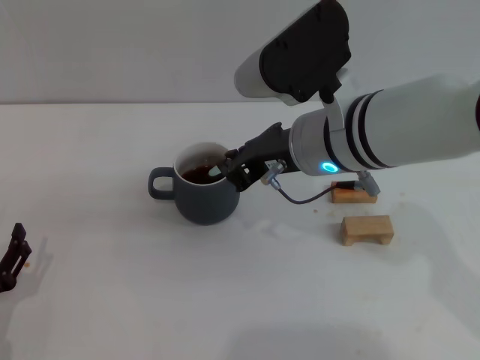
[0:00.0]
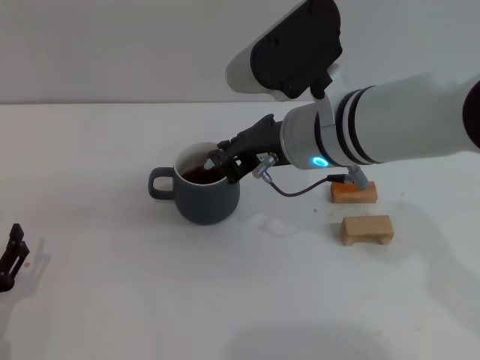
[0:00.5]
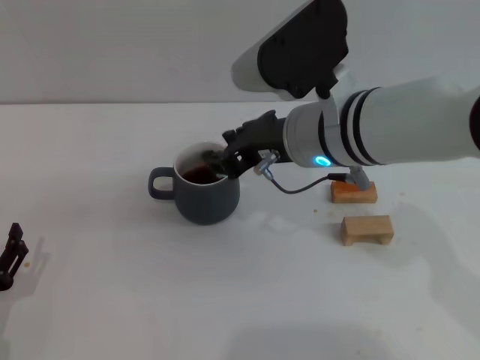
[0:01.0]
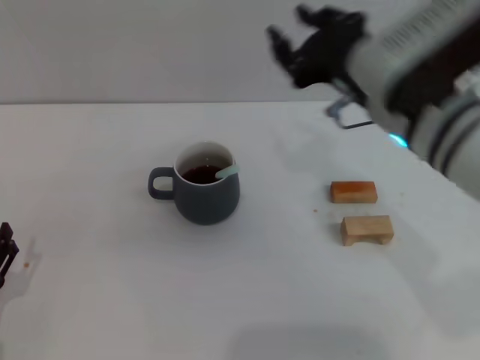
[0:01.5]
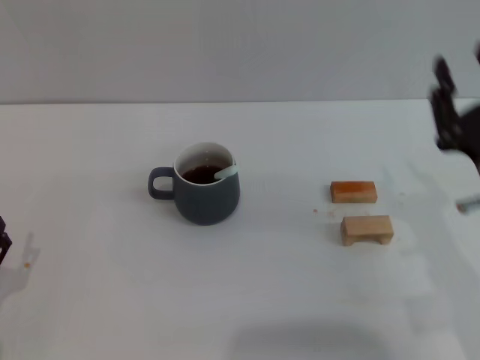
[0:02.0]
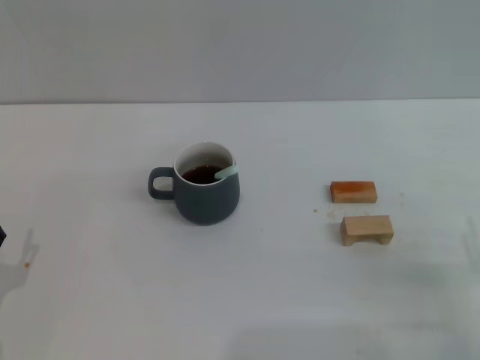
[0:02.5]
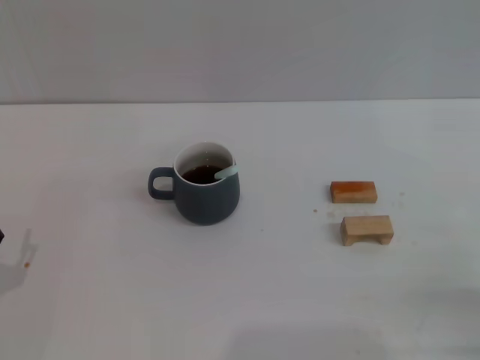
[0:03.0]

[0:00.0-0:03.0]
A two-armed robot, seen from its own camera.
Task of the whole recording: Move the grey cup to the center, lift the blue spoon, stir it three times in the cup, and put the spoon into the cup.
0:00.0 to 0:01.5: The right gripper shifts roughly 5 cm to the right, and opens its fingers.
0:01.5 to 0:03.0: The right gripper travels to the right, backward and downward by about 30 cm.
